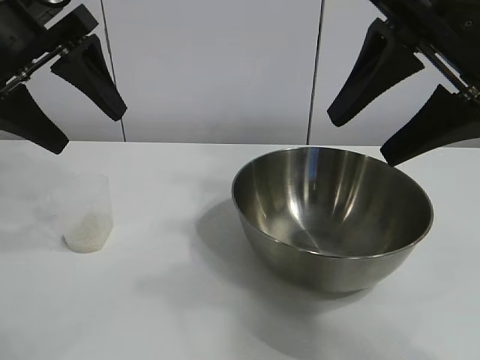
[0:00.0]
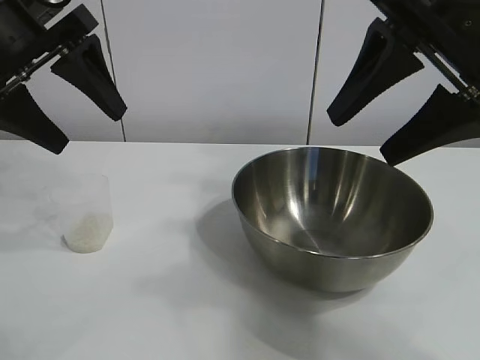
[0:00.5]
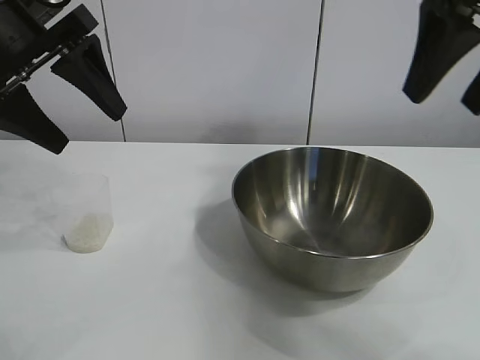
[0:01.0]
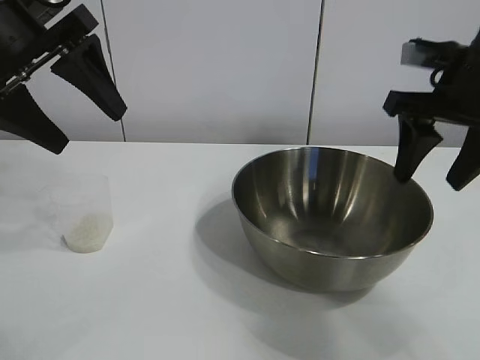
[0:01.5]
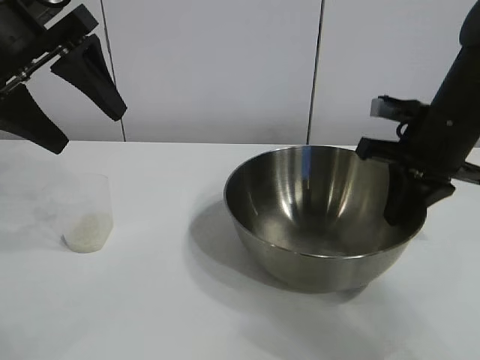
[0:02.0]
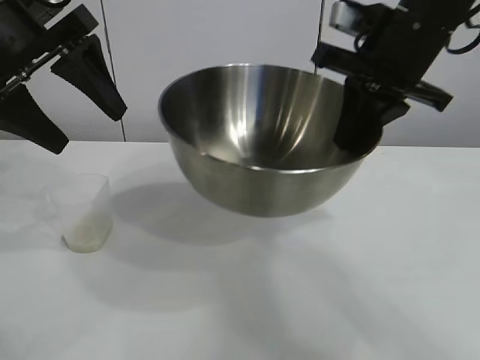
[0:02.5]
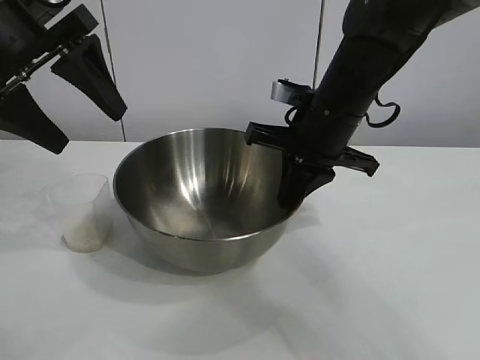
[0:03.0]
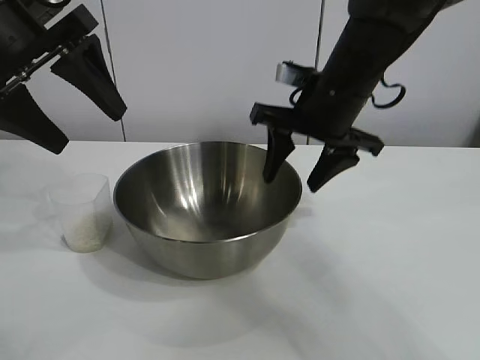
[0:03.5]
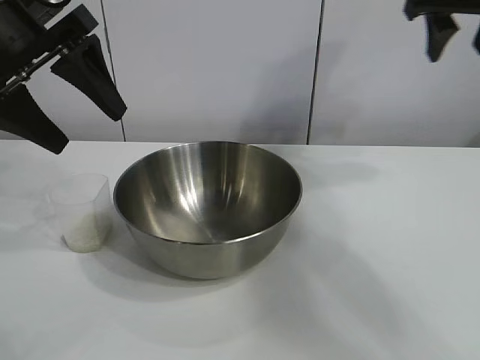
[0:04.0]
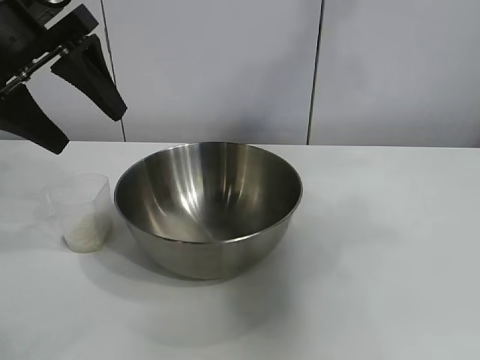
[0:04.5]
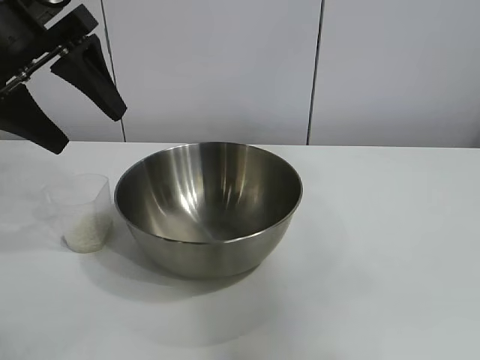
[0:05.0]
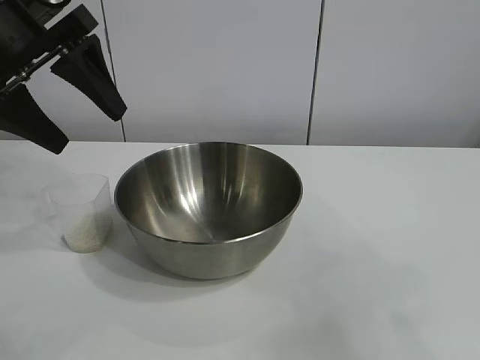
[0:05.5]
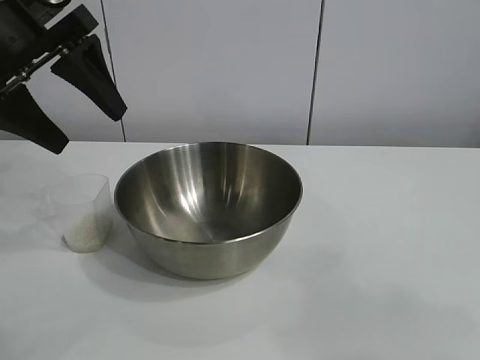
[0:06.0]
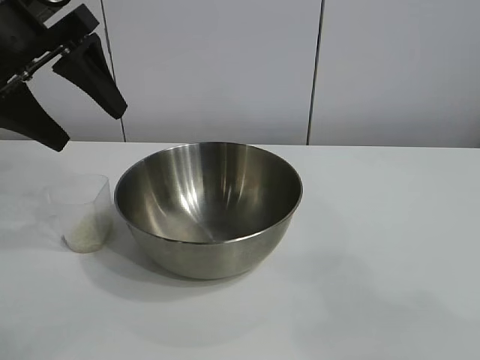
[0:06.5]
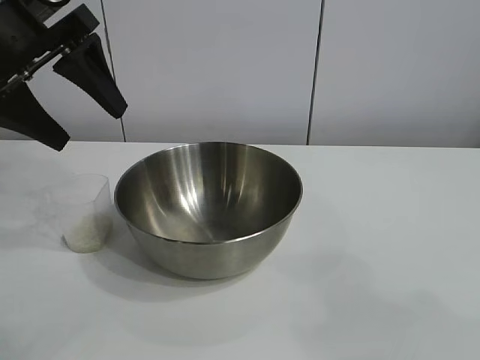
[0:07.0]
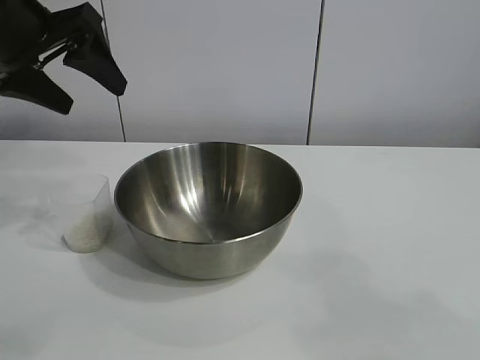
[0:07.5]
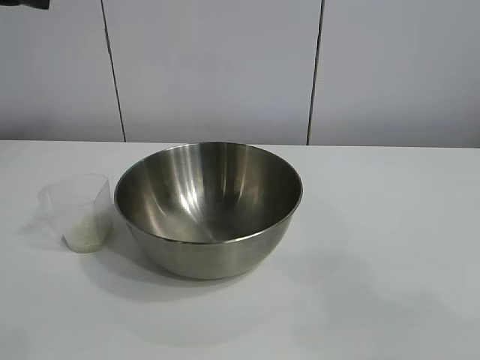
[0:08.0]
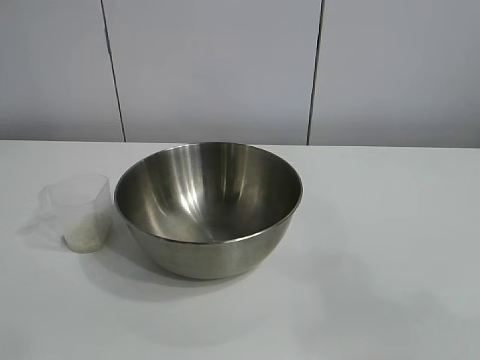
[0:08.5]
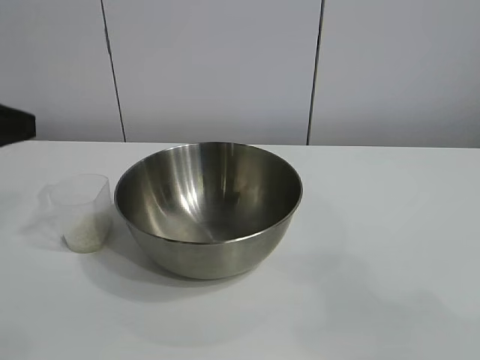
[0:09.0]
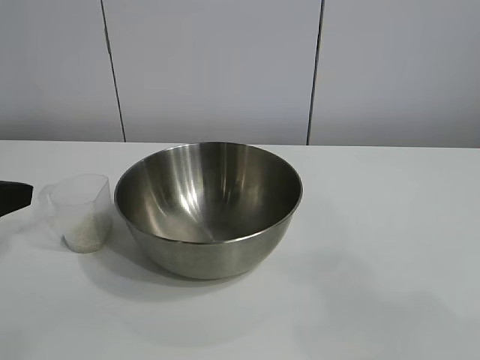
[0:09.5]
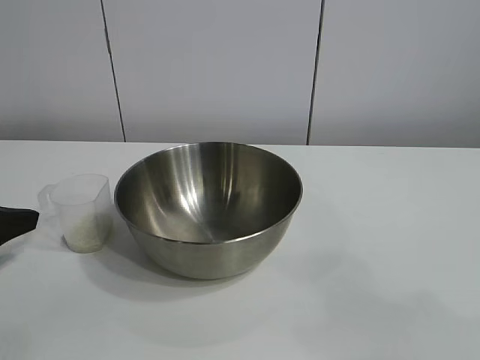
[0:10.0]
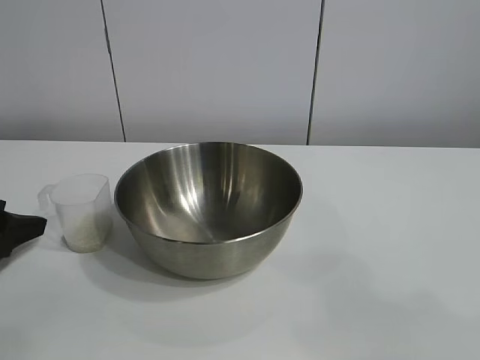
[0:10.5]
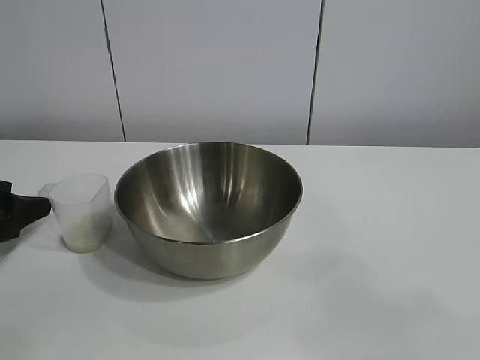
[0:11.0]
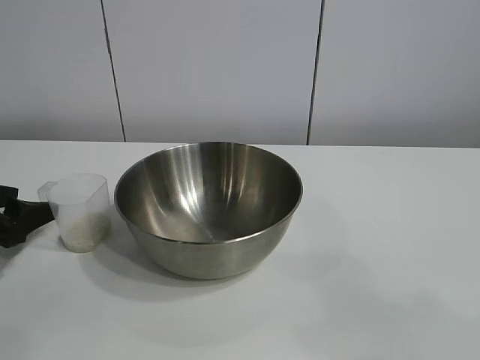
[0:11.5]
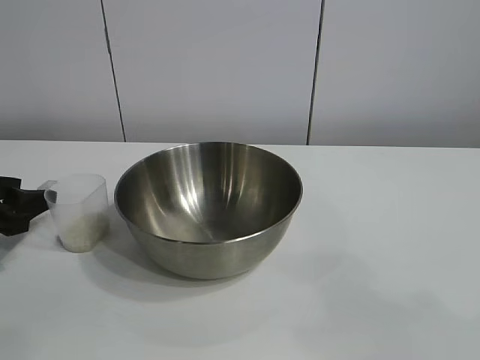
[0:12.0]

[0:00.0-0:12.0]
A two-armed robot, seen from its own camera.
Task of the whole recording: the right gripper grasp the rice container and place it in the center of the table, the left gripper grasp the rice scoop and pour the rice into the rice container.
Step, 0:00.5 to 0:03.0: Move the bowl in the center of view with right gripper.

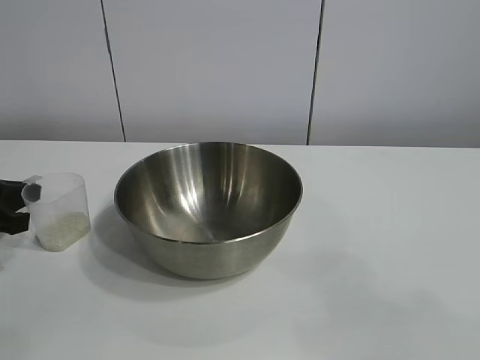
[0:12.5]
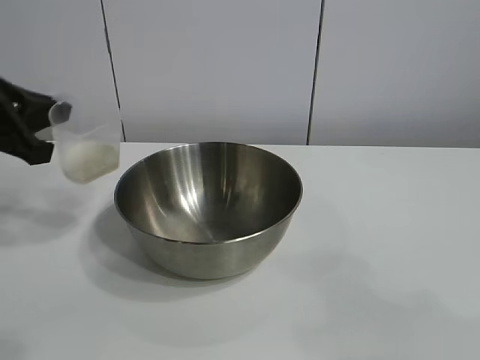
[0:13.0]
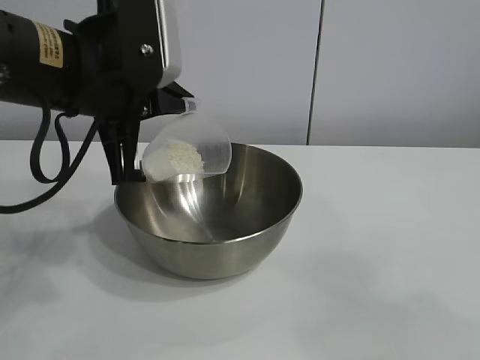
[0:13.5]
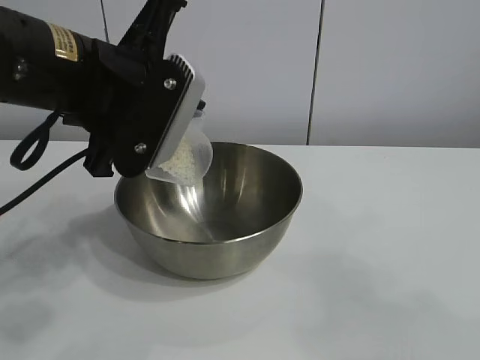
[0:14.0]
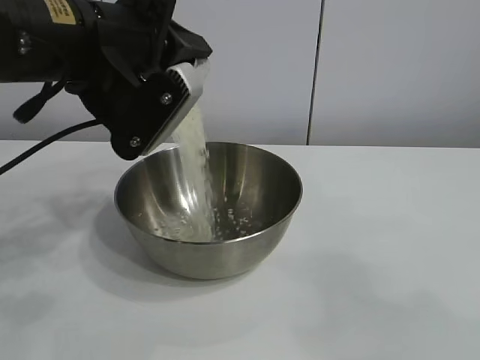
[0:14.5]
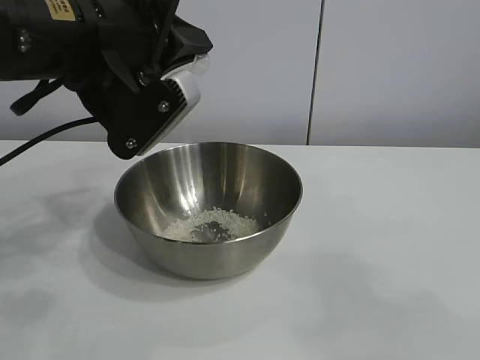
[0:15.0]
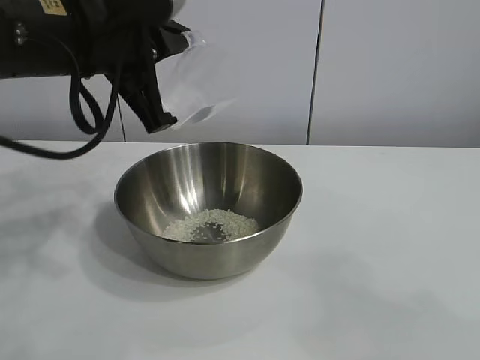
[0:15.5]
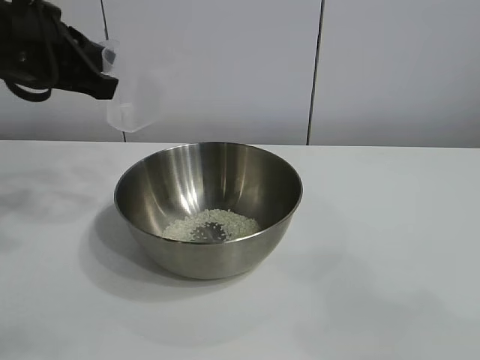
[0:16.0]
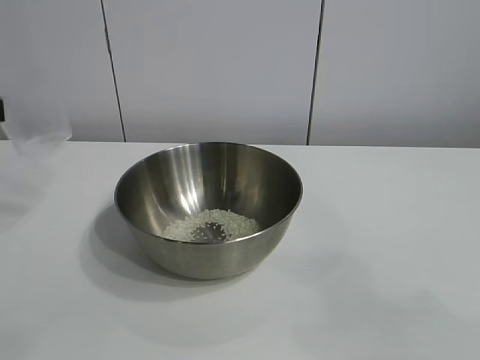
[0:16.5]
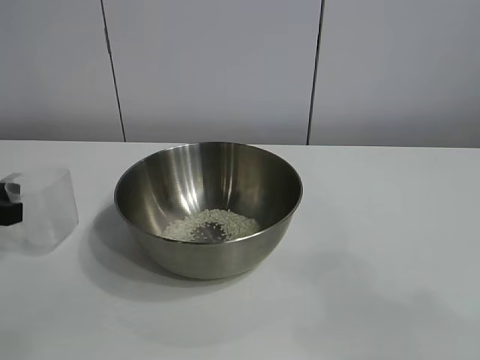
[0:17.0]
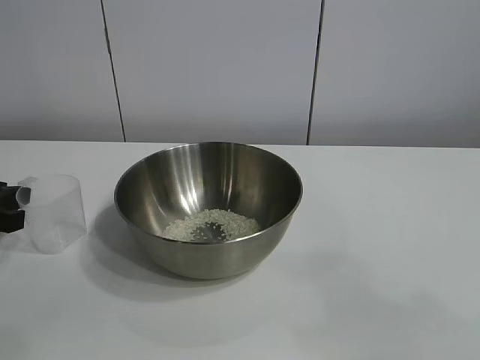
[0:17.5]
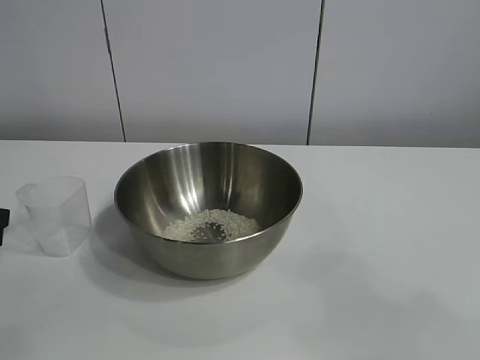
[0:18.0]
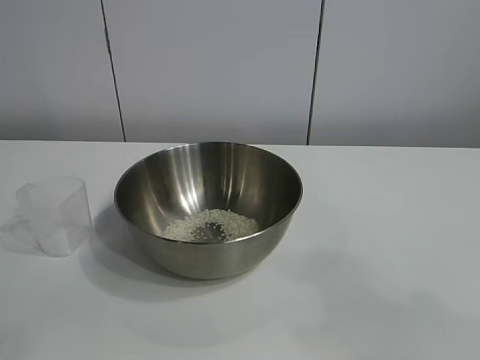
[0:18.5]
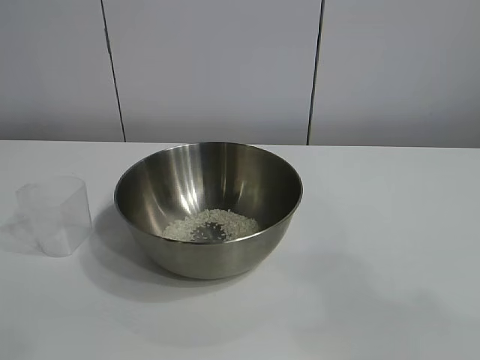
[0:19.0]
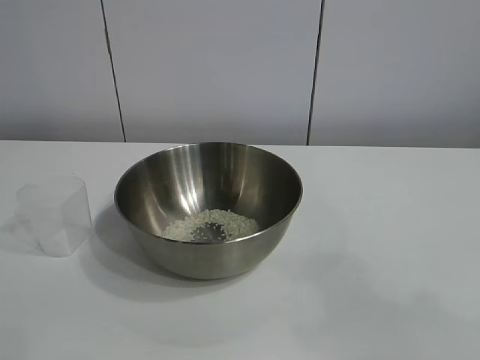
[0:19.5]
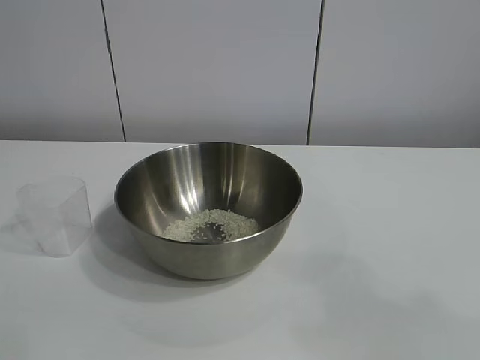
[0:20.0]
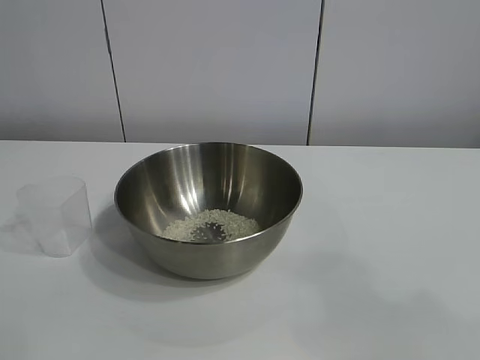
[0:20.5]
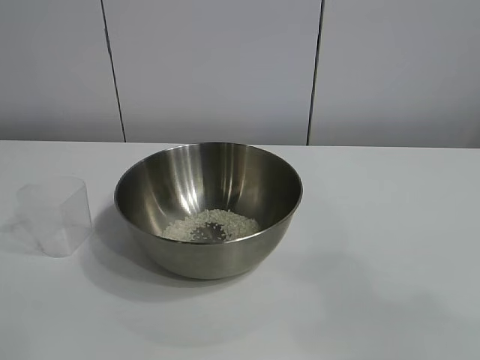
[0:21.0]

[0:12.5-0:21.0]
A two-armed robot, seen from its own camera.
Task of the whole recording: the right gripper grasp the rice container and place it in the center of the table, the left gripper grasp the rice scoop and pour the rice into the rice container.
Step, 0:13.0 to 0:14.5: Pour the rice from the cup into the bowl with the left gripper.
Step, 0:15.5 to 0:17.5: Place the cup on the table with the left gripper.

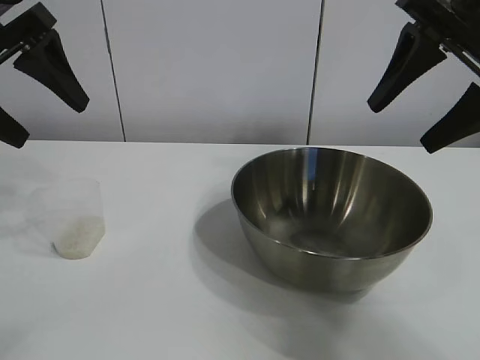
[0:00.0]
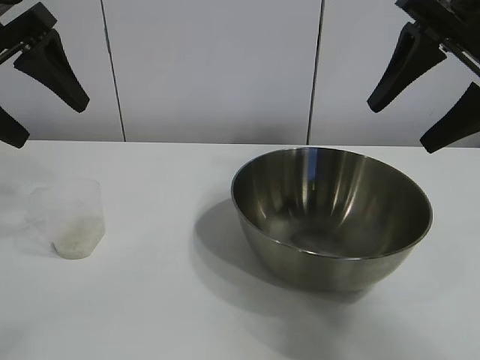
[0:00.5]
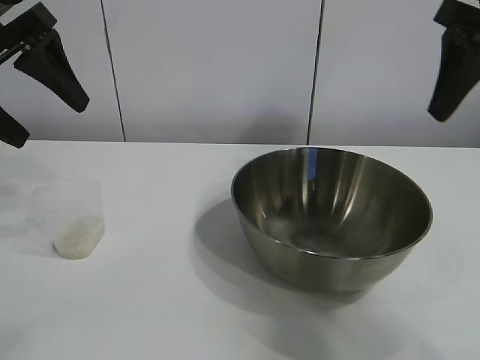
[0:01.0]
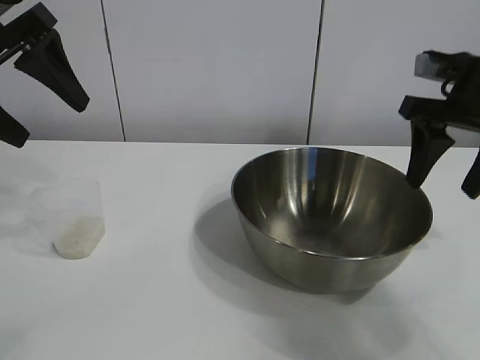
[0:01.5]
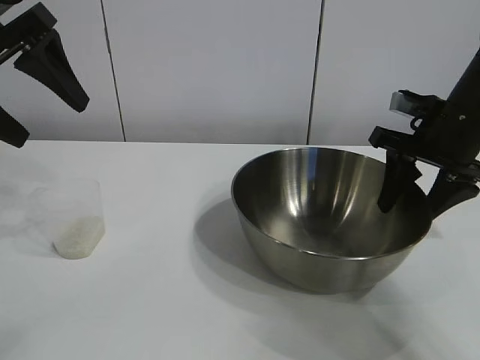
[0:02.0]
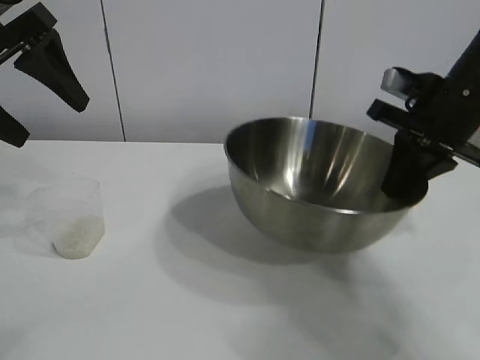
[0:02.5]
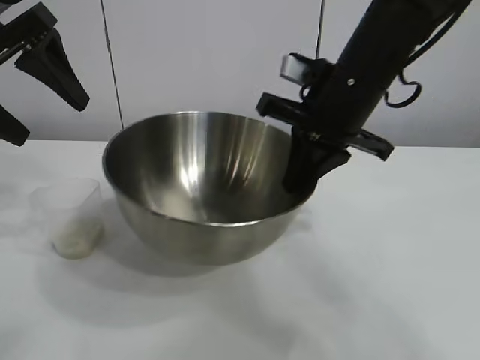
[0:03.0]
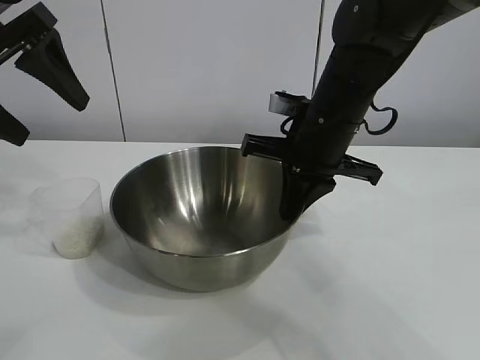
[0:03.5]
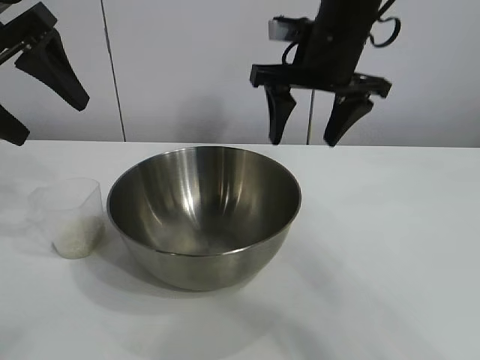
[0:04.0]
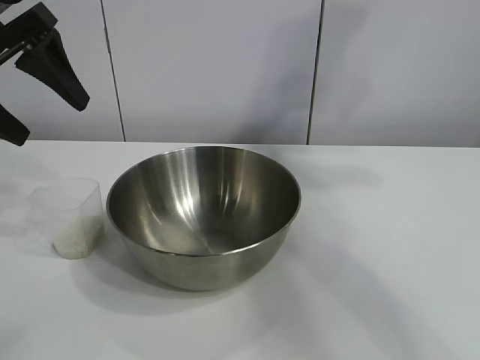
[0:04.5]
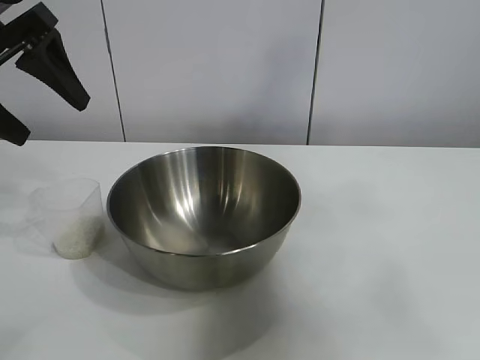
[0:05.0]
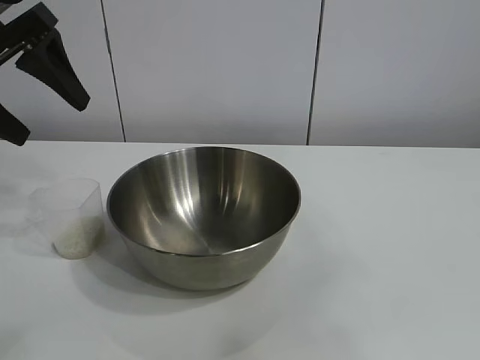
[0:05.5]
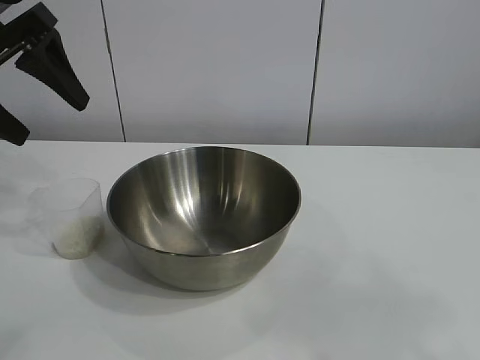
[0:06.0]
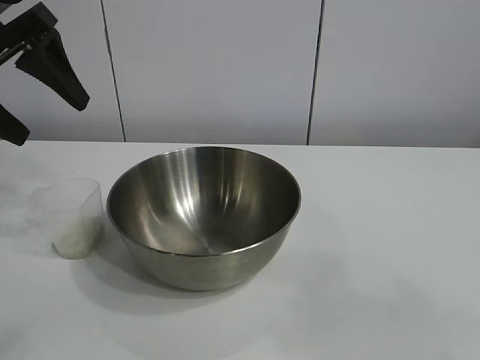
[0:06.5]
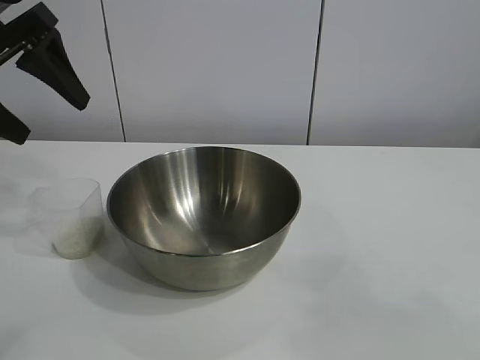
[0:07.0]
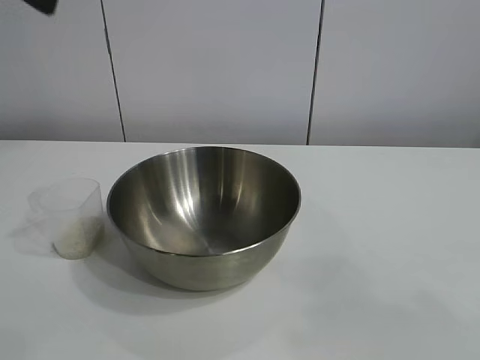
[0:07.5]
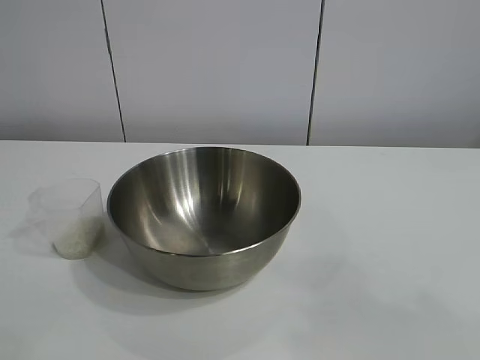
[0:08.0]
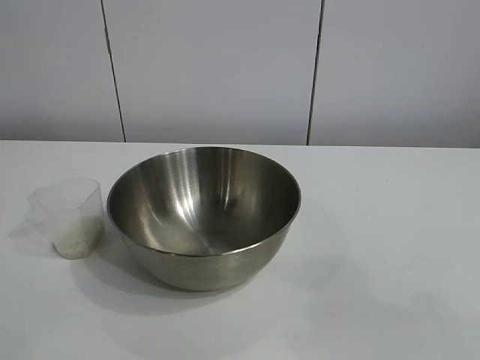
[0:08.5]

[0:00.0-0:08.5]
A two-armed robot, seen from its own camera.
Task of the whole recording: the right gripper grasp the rice container and place it in the center of the table, the left gripper grasp the rice scoop and pour the rice into the rice container.
Step, 0:01.0 to 0:03.5: Move the bowl in the center of view with right gripper.